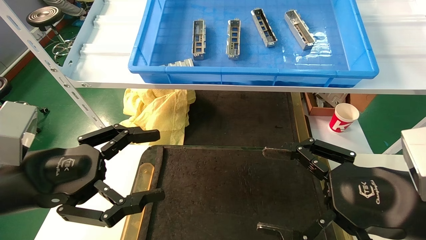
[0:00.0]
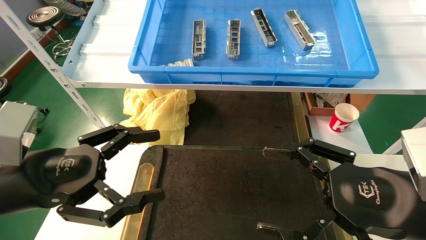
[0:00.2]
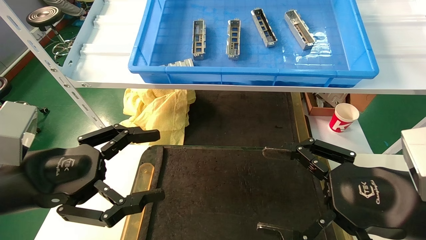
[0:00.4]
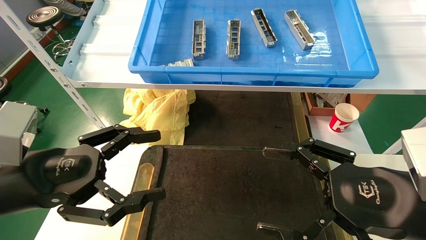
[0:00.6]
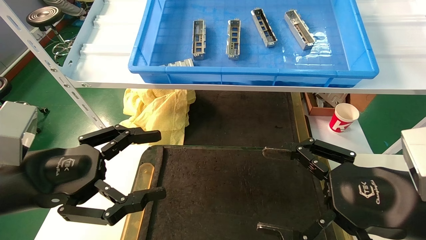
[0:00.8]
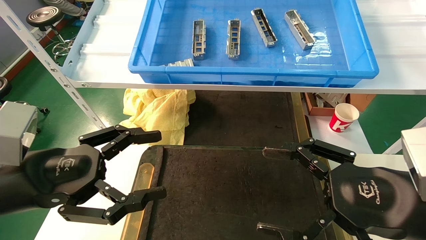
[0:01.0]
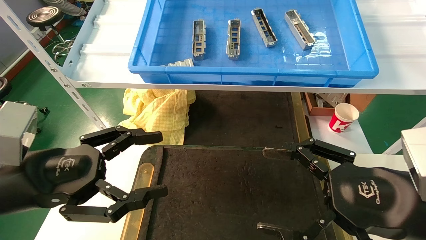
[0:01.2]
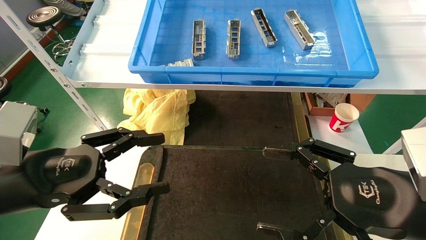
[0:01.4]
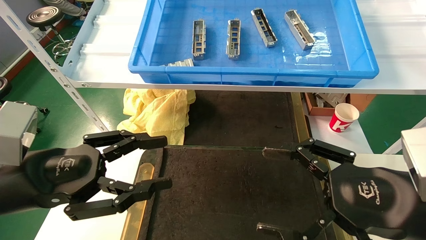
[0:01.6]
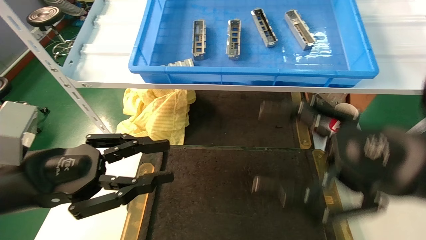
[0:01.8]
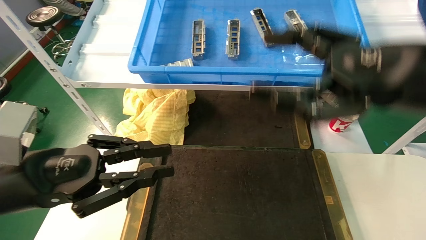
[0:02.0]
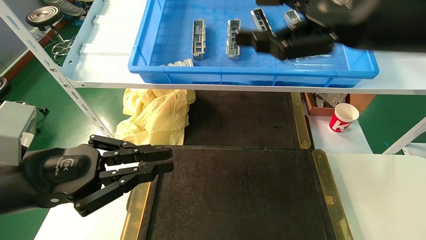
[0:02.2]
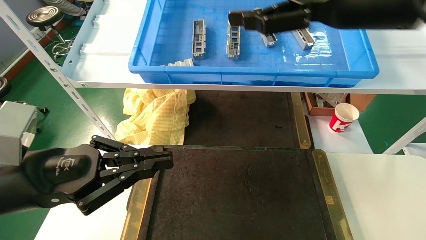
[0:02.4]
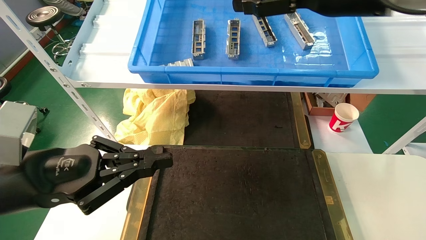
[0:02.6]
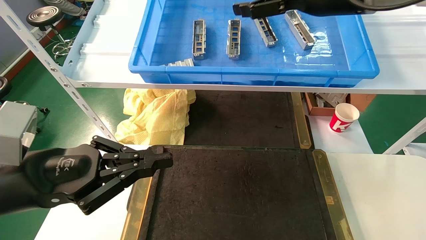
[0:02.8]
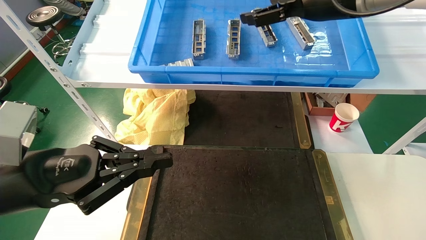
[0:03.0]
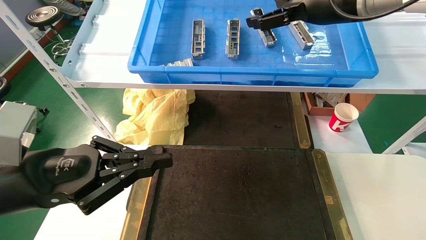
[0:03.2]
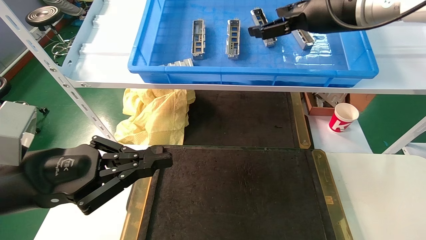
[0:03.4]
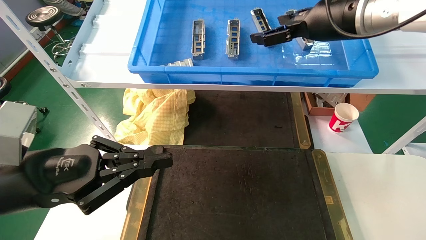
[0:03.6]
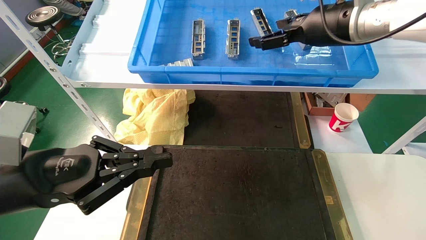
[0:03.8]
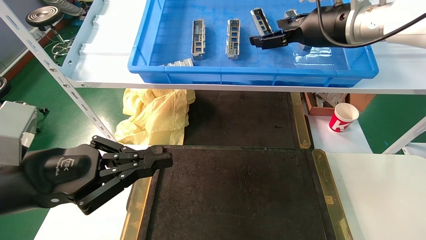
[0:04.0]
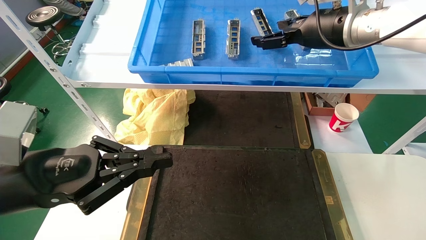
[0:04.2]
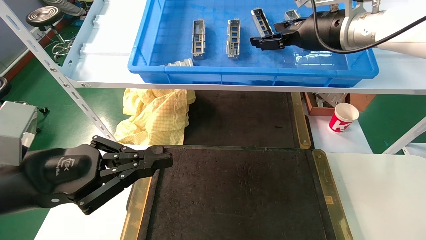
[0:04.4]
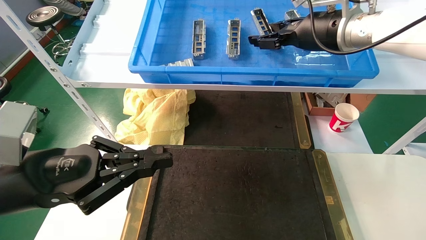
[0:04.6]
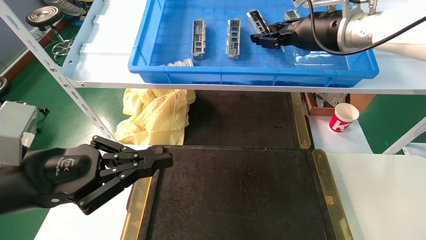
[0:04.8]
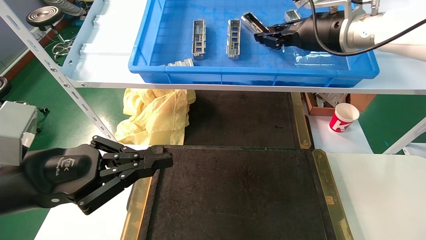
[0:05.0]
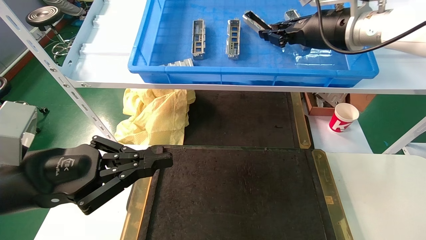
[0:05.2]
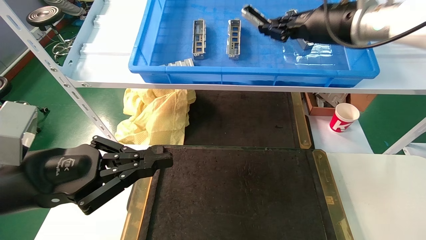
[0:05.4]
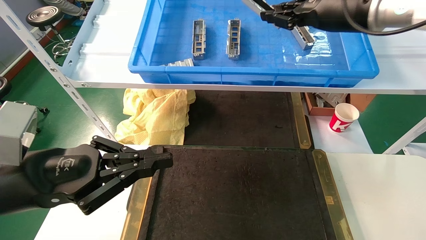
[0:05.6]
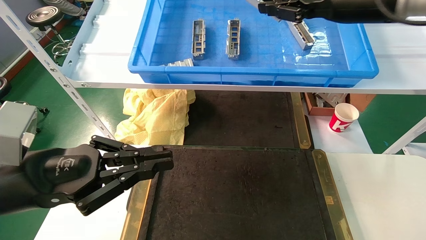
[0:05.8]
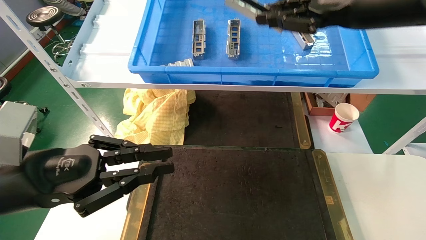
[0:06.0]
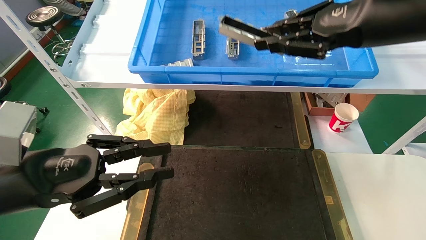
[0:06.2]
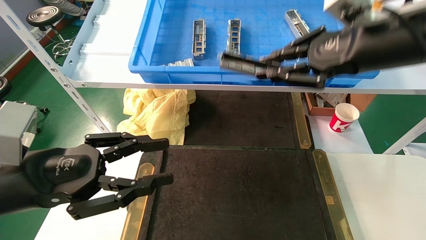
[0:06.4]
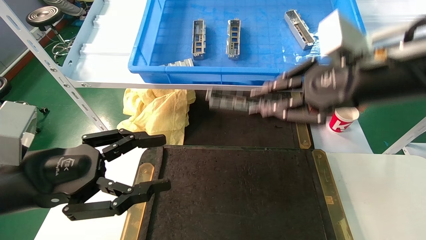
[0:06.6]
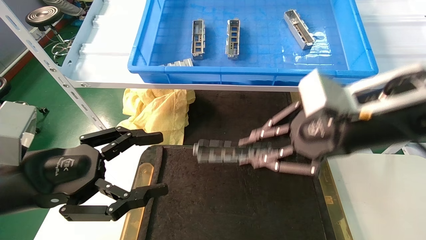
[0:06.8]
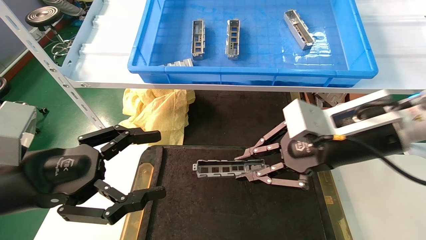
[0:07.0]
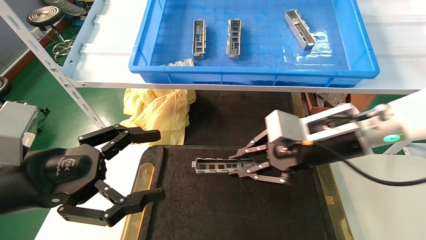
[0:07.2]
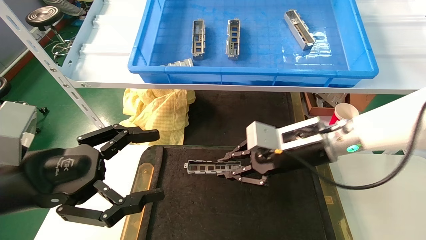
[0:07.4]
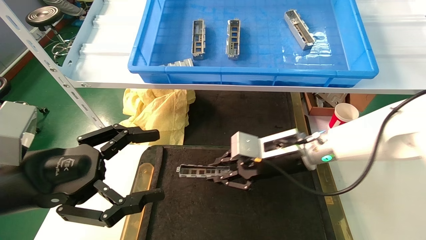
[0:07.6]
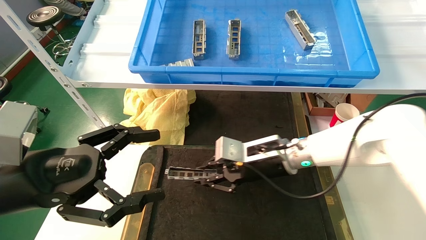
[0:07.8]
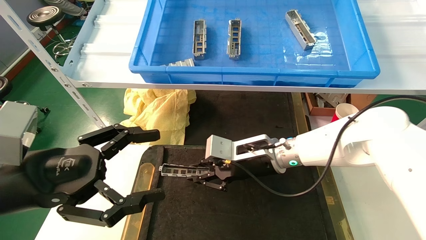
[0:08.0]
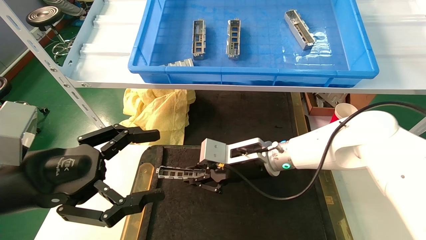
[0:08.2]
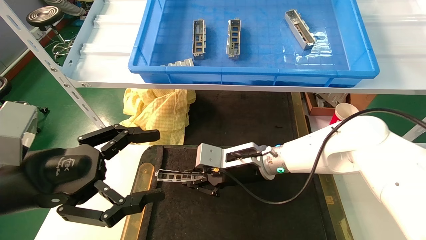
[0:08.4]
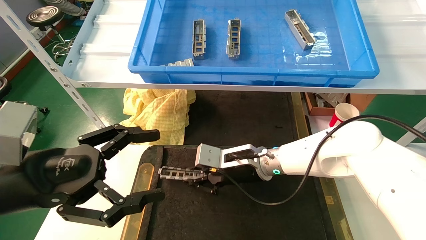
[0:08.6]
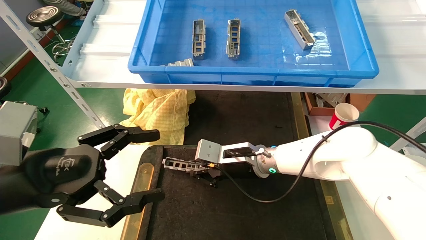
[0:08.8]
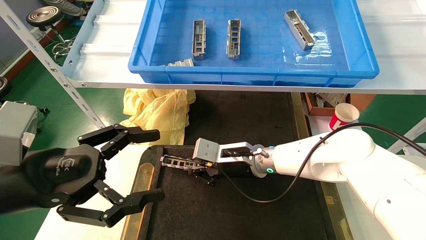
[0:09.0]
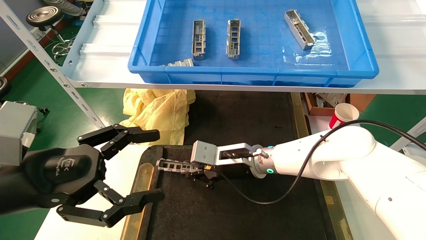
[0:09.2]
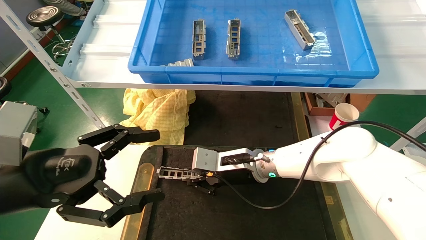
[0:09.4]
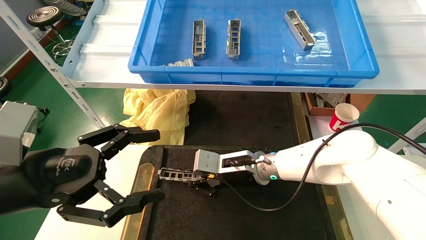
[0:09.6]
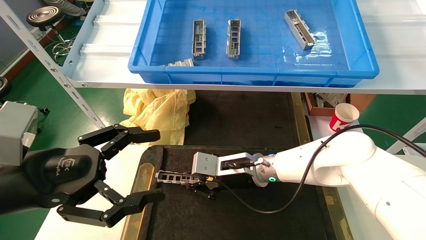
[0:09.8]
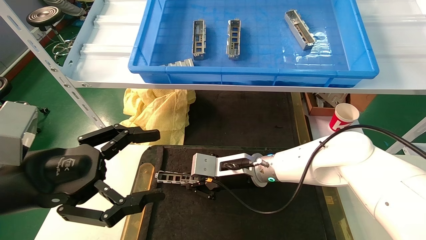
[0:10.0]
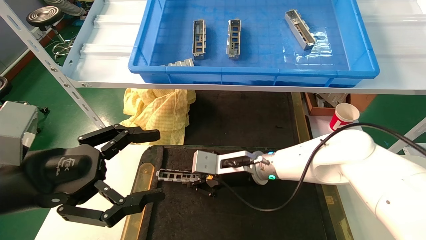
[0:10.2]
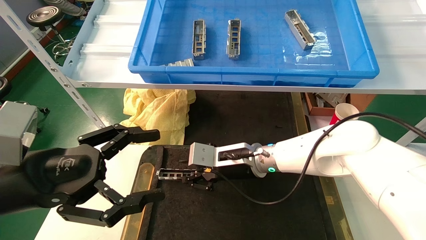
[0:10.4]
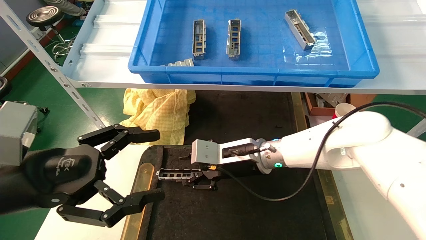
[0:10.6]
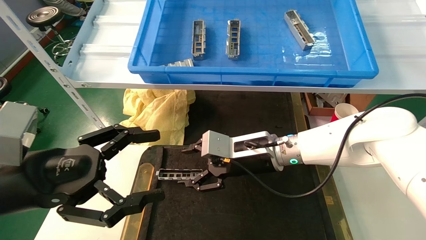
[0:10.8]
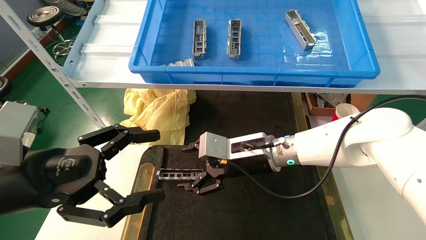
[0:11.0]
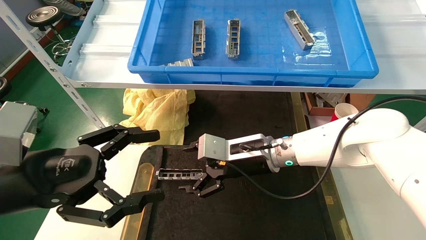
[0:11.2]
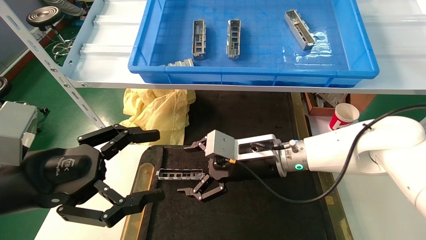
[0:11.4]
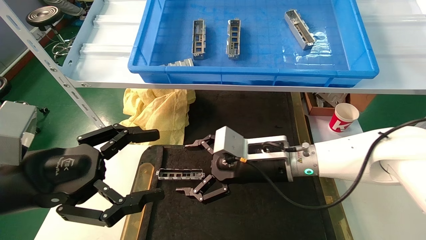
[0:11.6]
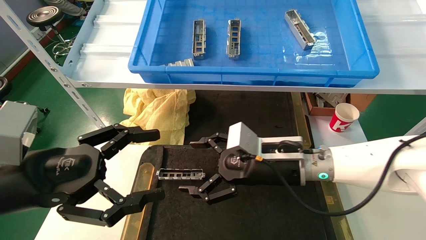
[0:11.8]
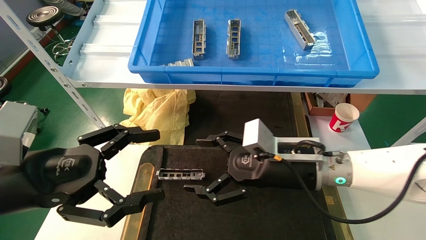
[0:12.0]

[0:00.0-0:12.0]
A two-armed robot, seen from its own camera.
Task of the whole recording: grasp the part and place them on the black container.
Step, 0:02.2 to 0:05.6: Pick up and lift the front USB bracket from the feeding area.
Step, 0:05.8 to 0:10.6: Place the front USB bracket into the box.
0:00.0 to 0:01.6: There are only small adjustments of the grippers.
0:01.6 to 0:03.0: The left gripper closes its fingers, while the right gripper travels upward and forward by about 30 cm.
0:03.0 to 0:04.4: The right gripper ends up roughly 5 cm from where it was.
0:04.4 to 0:06.0: The right gripper travels backward by about 10 cm, and closes up.
0:06.0 to 0:07.6: The left gripper opens up, while the right gripper moves downward and to the left, approximately 25 cm.
0:07.6 to 0:09.0: The right gripper is displaced to the left and downward by about 10 cm.
0:09.0 to 0:10.4: The grippers make only small movements.
0:10.4 to 0:12.0: The right gripper heads to the right and backward, covering roughly 10 cm, and opens its fingers.

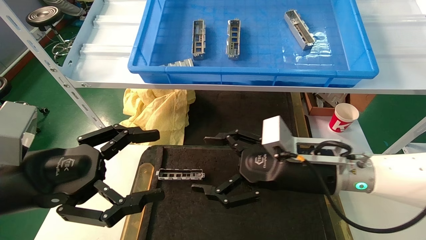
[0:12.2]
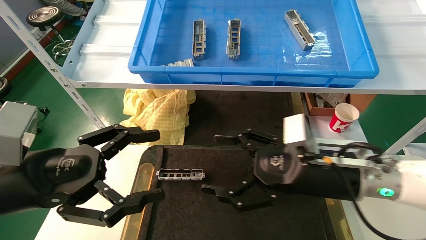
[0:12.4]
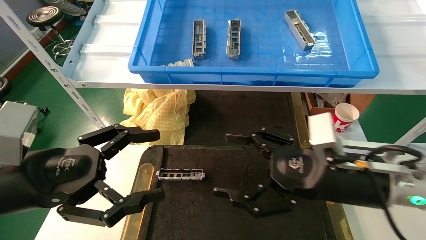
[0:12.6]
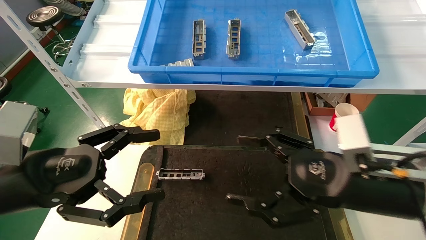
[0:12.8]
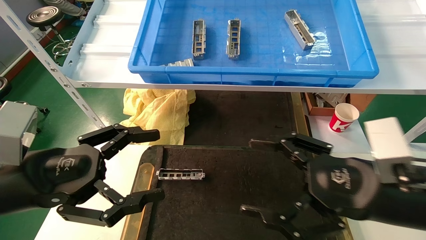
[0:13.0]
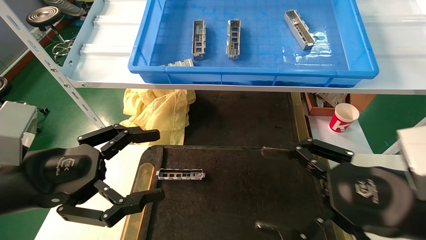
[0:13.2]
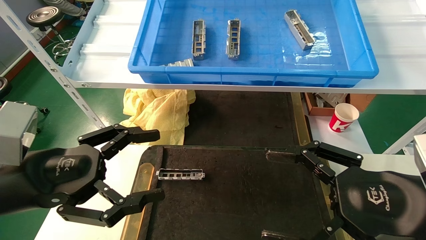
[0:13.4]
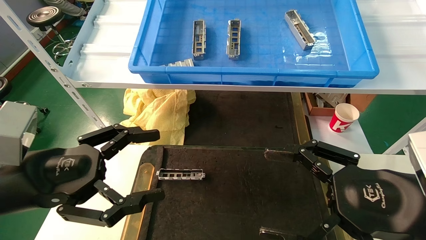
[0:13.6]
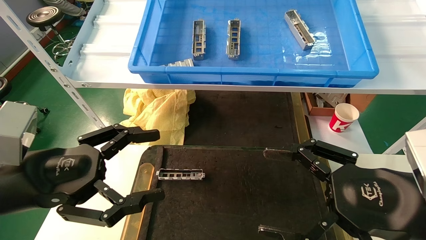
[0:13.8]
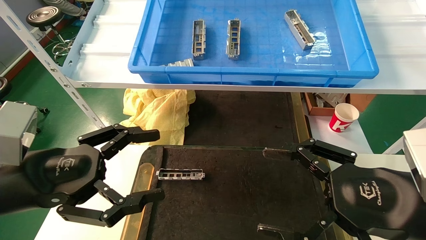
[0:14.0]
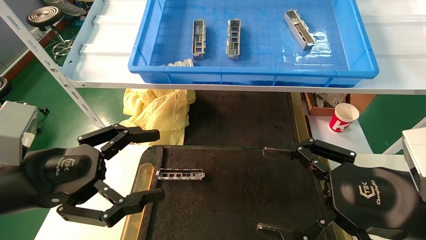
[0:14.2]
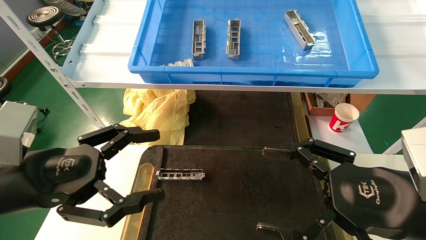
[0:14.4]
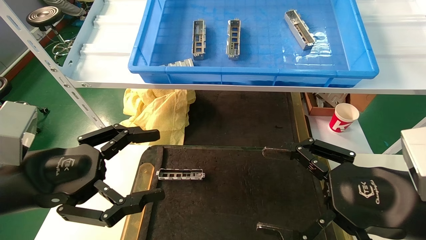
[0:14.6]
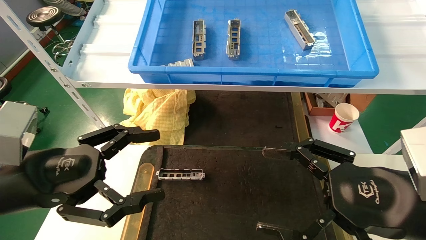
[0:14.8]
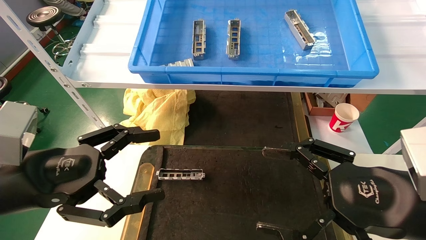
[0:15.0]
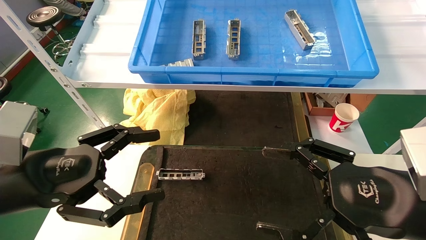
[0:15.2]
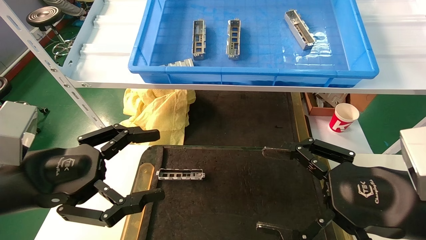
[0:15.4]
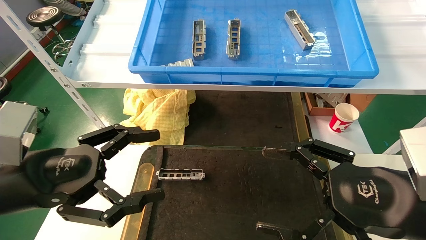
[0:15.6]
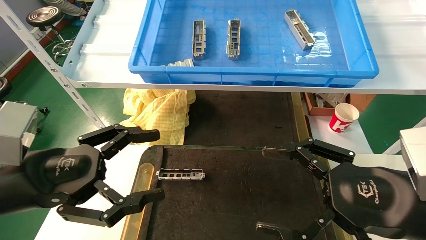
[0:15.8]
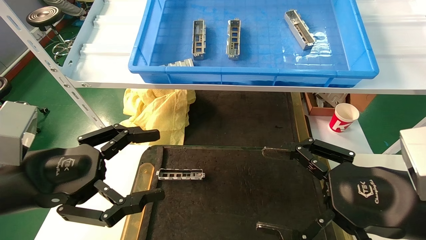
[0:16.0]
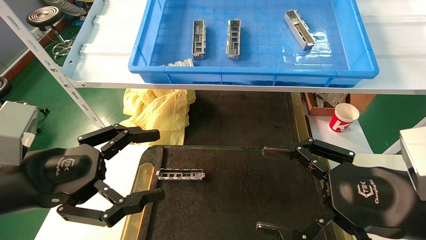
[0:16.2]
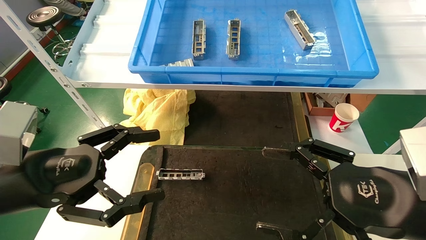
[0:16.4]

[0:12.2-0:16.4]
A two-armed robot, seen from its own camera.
Task of the whole recording: grasp the part and place them on the black container.
0:12.2 to 0:13.6: The right gripper is displaced backward and to the right by some 15 cm.
0:13.6 to 0:16.4: Both grippers stay about where they are.
